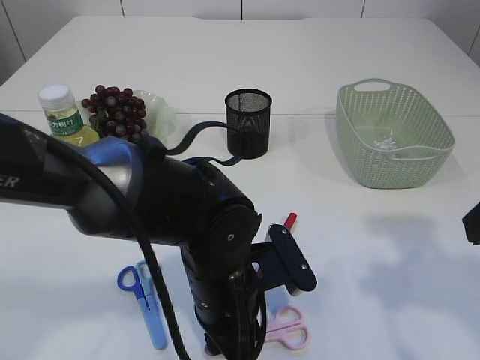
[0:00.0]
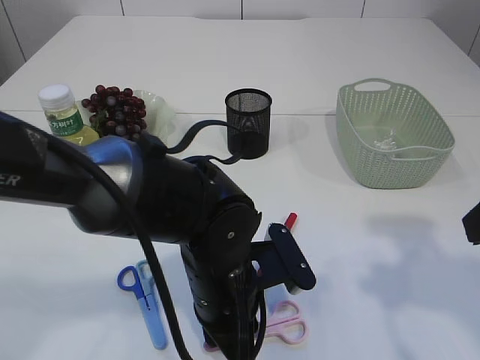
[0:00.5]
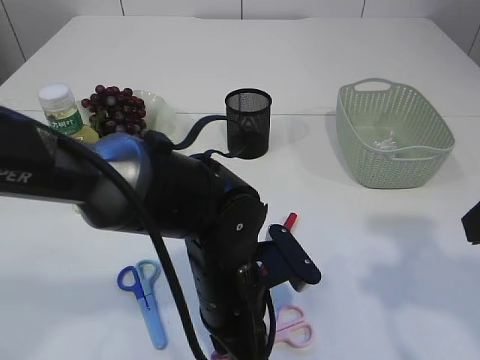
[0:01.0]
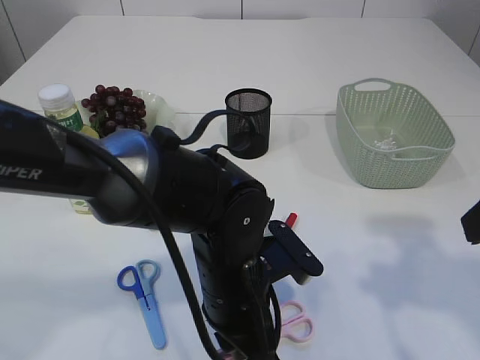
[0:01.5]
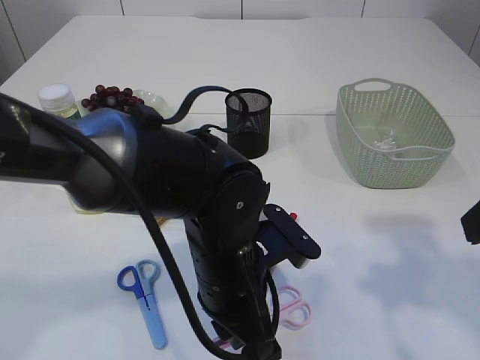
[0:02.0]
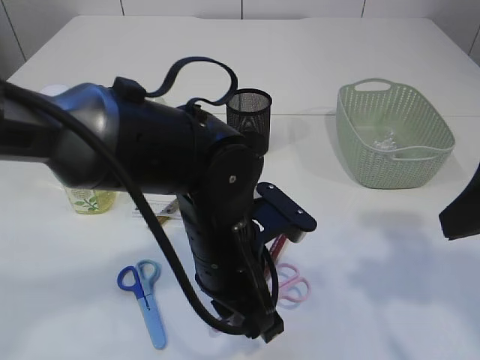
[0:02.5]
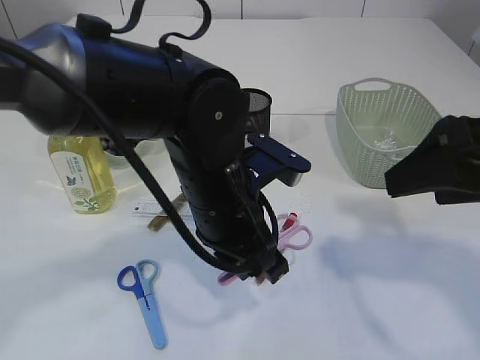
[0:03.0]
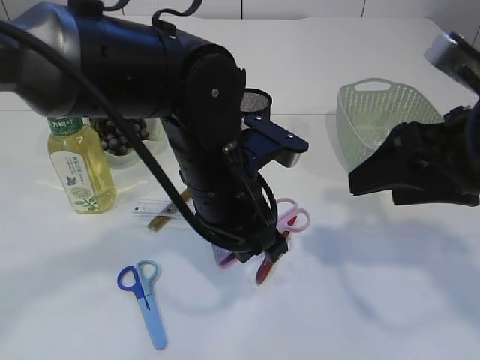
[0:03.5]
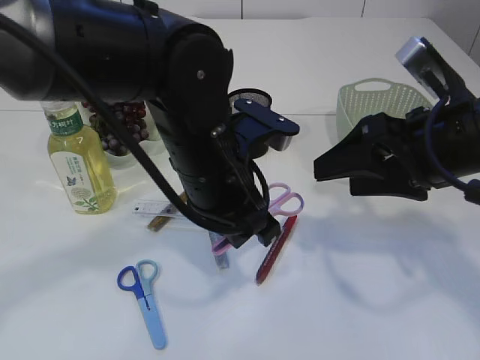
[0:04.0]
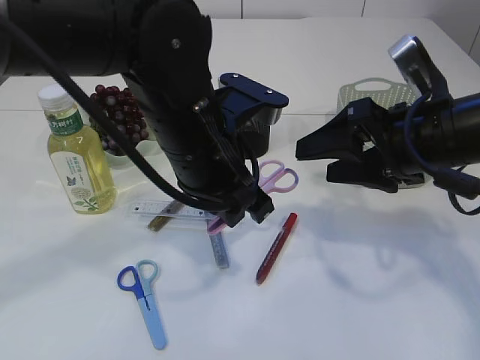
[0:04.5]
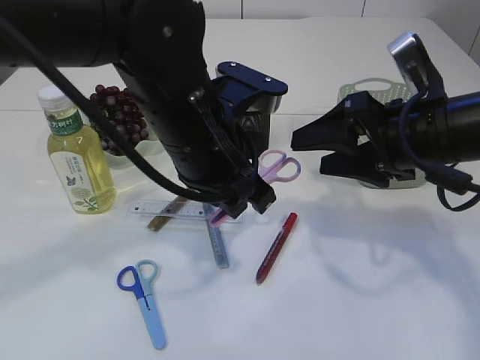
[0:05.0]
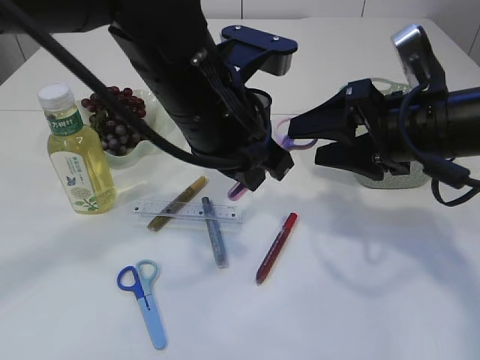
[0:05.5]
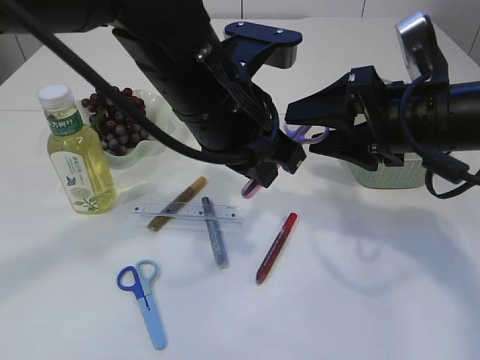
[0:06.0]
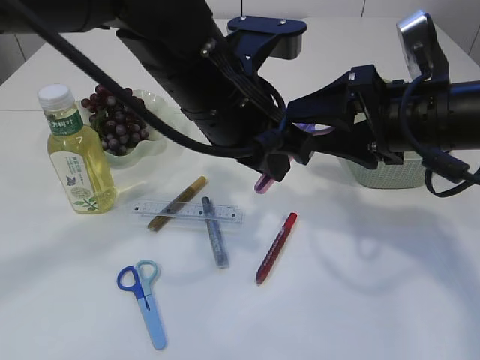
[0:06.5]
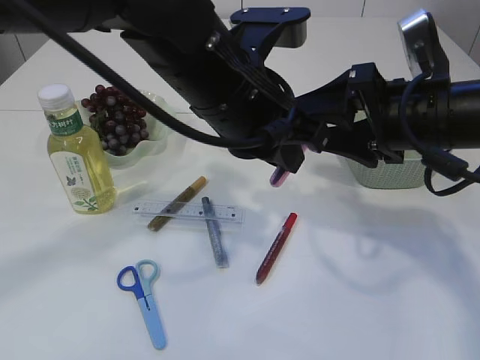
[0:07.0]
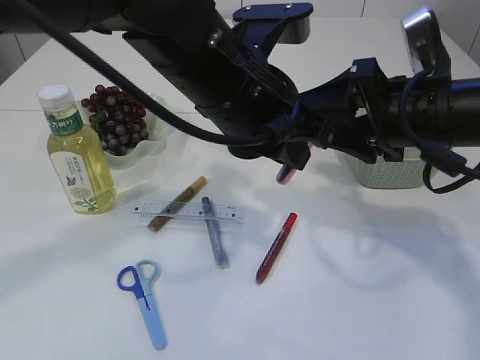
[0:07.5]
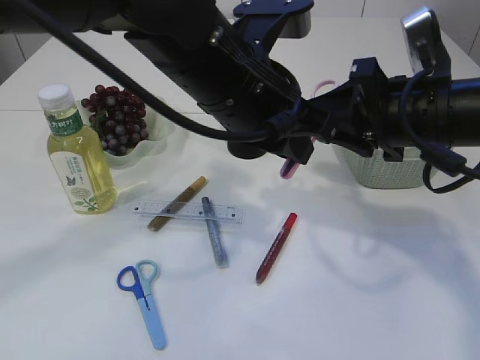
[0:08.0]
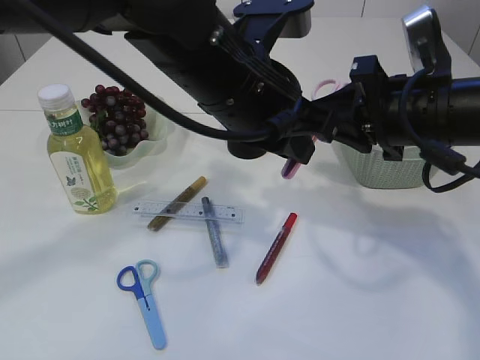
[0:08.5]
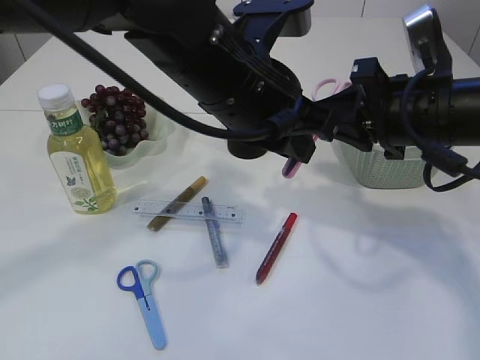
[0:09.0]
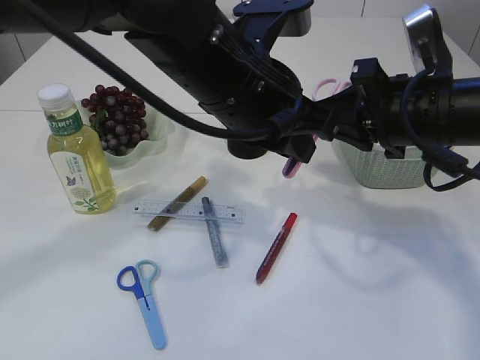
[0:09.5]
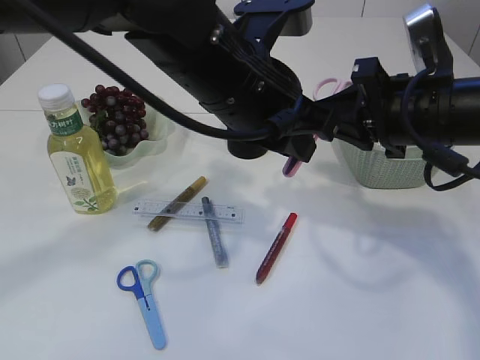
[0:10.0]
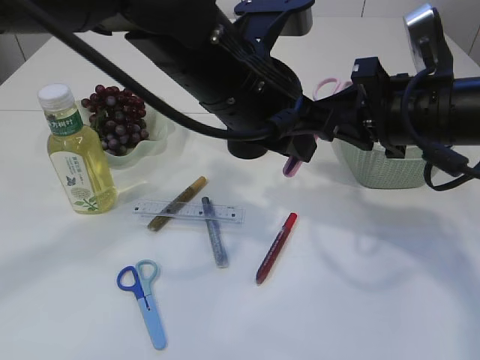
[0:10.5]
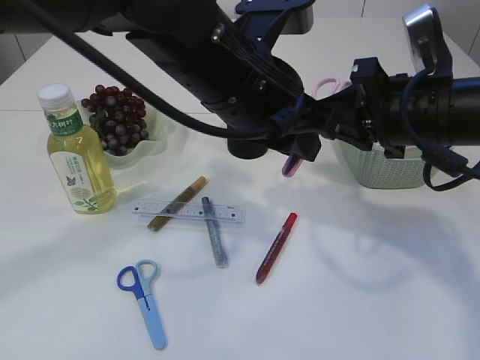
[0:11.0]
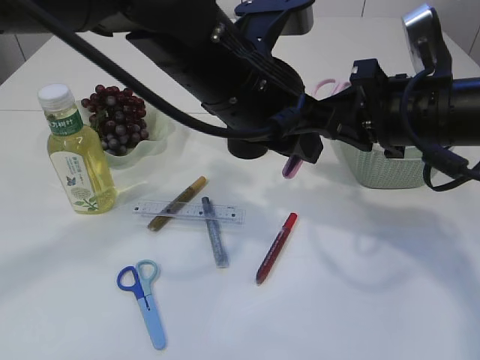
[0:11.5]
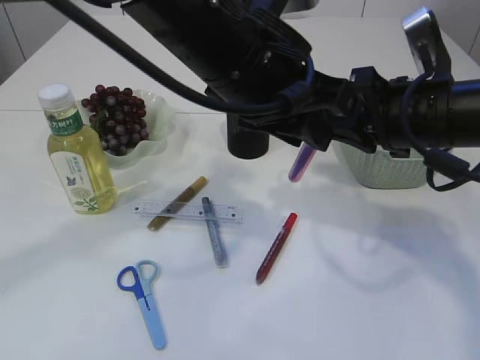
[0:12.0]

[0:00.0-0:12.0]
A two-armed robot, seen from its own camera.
0:00.0 to 0:02.0: The grippers move only a little.
0:02.0 to 0:04.0: The left gripper heads upward and forward, covering some 10 cm, while the right gripper is displaced forward and downward by roughly 10 cm.
0:04.0 to 0:06.0: The left gripper goes roughly 5 cm upward.
0:06.0 to 0:08.0: The right gripper closes up.
0:08.0 to 0:10.0: The right gripper closes its fingers.
0:10.0 to 0:12.0: There are only small adjustments of the grippers.

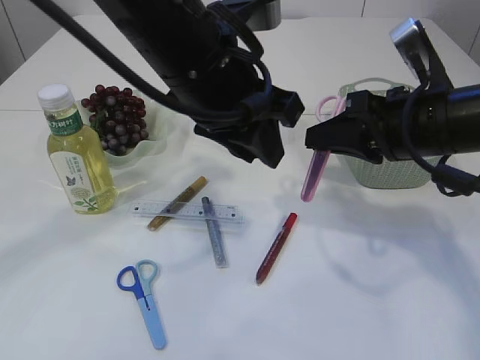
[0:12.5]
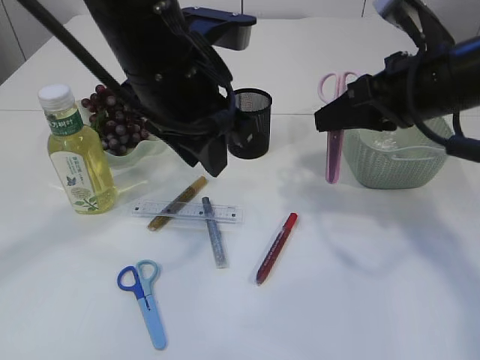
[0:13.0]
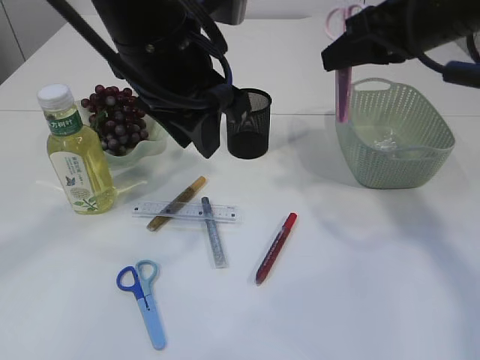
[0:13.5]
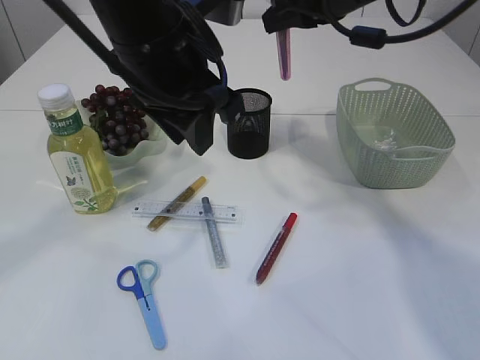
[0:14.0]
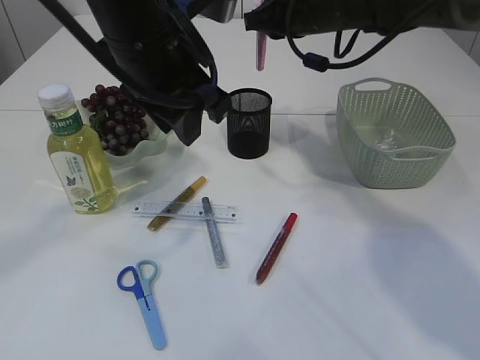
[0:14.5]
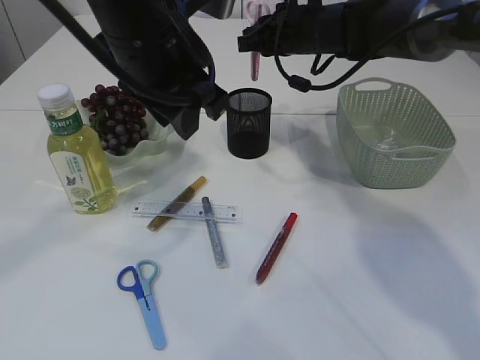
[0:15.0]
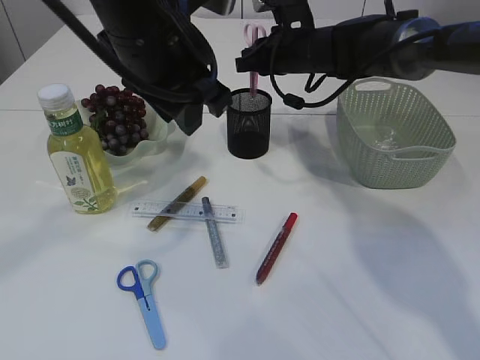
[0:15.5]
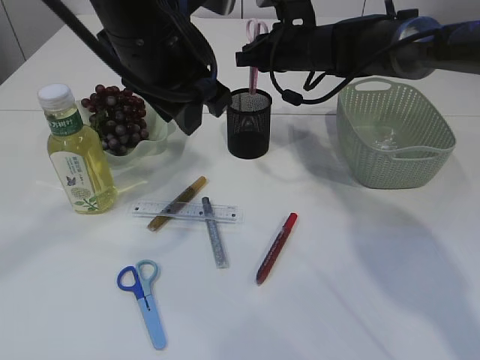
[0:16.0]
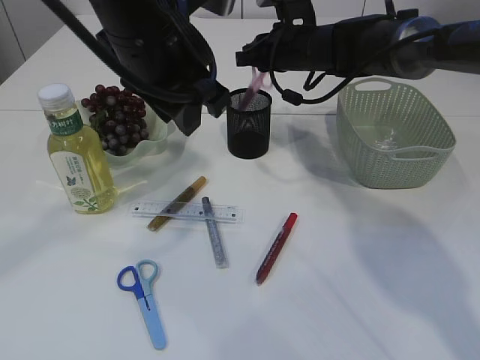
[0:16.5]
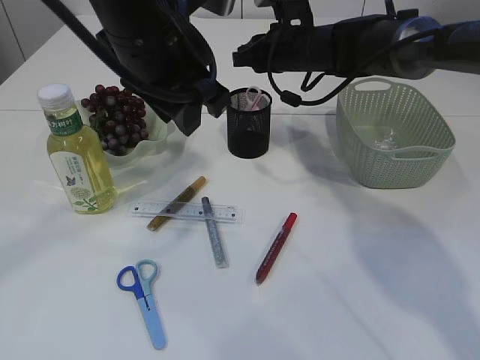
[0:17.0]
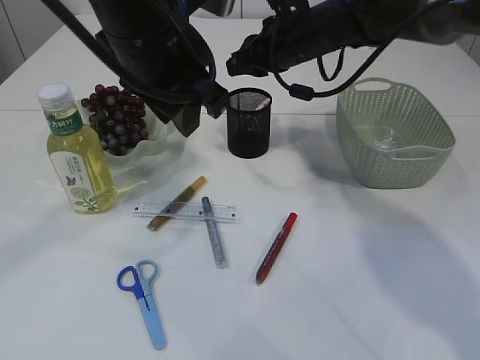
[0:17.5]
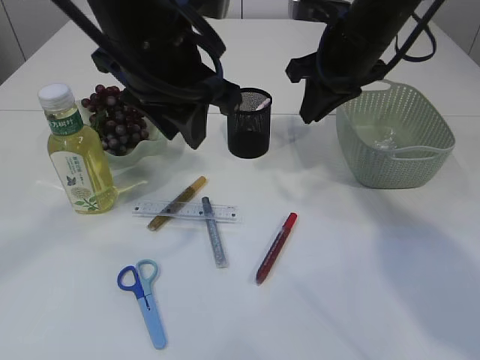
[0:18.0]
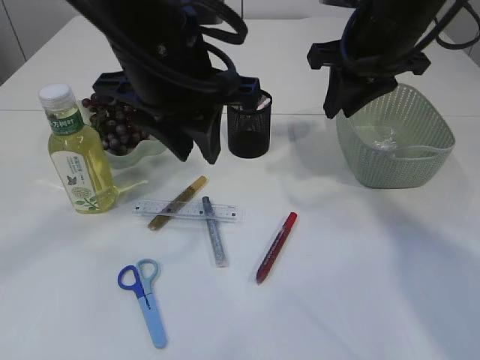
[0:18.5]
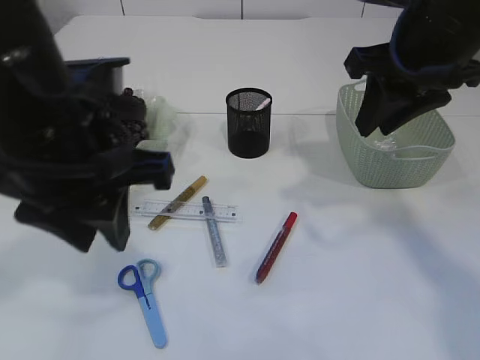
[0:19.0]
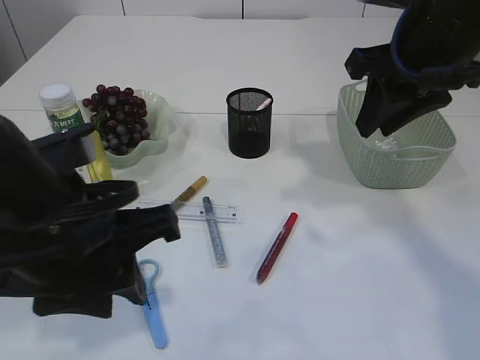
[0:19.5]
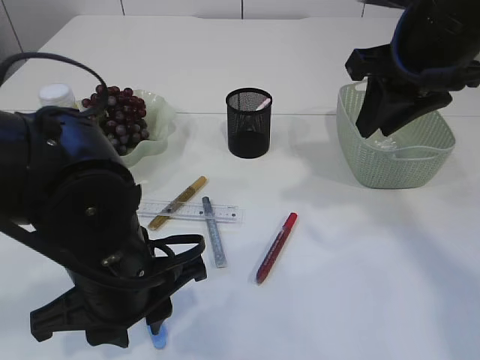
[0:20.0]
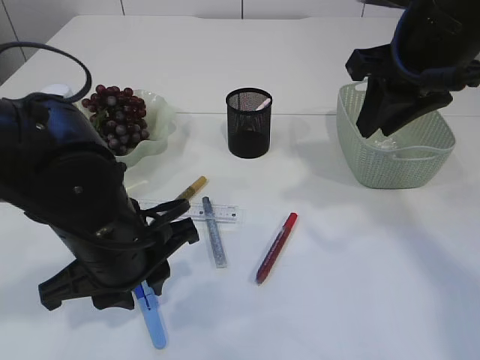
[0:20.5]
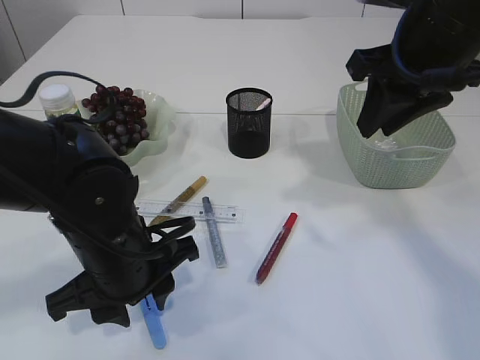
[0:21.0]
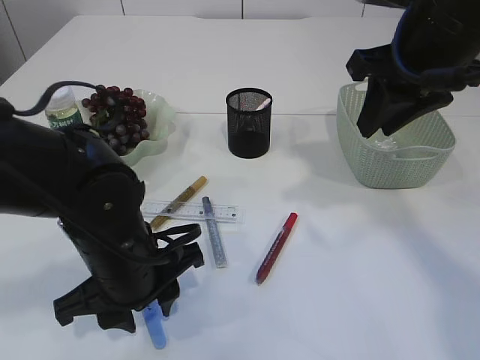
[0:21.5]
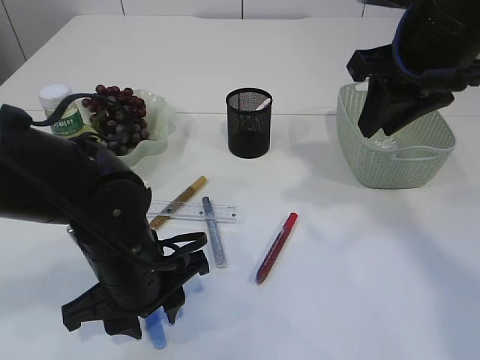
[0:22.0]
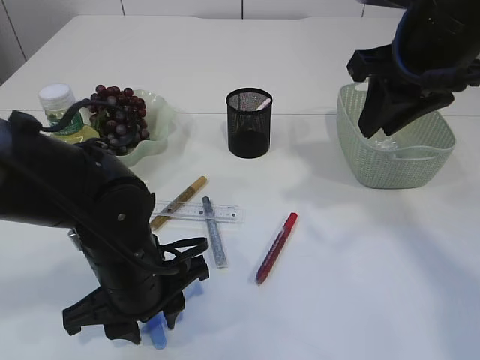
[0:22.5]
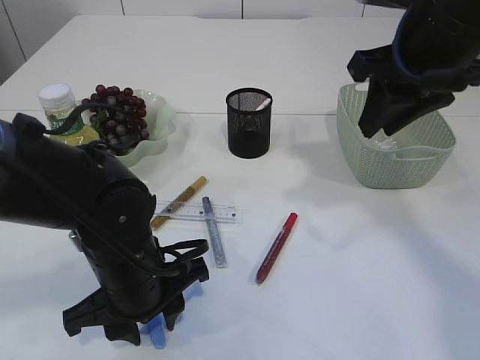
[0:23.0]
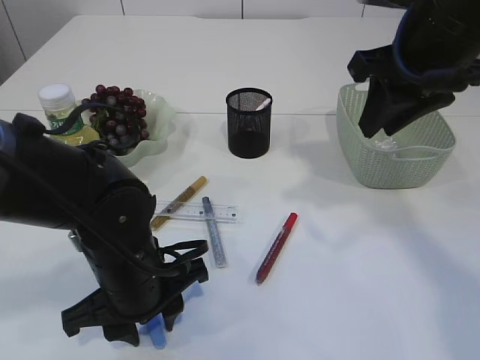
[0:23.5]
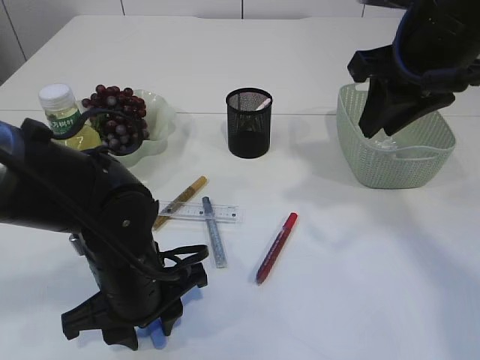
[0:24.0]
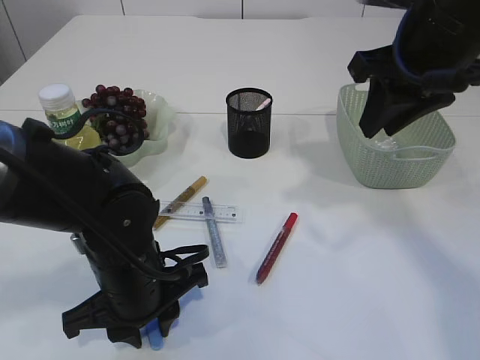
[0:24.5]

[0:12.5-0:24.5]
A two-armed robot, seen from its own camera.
Step, 0:12.5 to 0:16.5: Place the pink scissors into the pen holder.
0:12.5 to 0:14.5: The right gripper is displaced forward by some 15 cm.
0:14.5 to 0:16.5: The right gripper shifts about 5 cm downward.
0:16.5 to 0:18.5: The right gripper is displaced backward, upward and to the right by about 15 cm.
0:18.5 to 0:20.5: The right gripper heads backward, covering roughly 5 cm; the left gripper is displaced downward and backward by roughly 15 cm.
0:20.5 to 0:22.5: The left gripper is displaced downward by approximately 5 cm.
0:22.5 to 0:24.5: Neither gripper changes place.

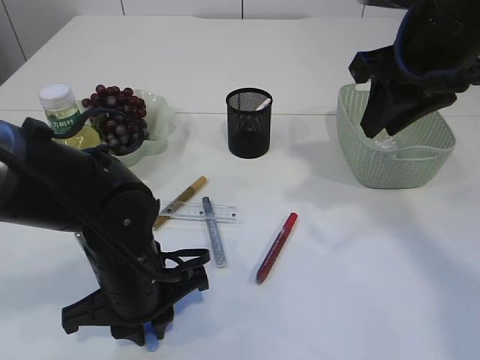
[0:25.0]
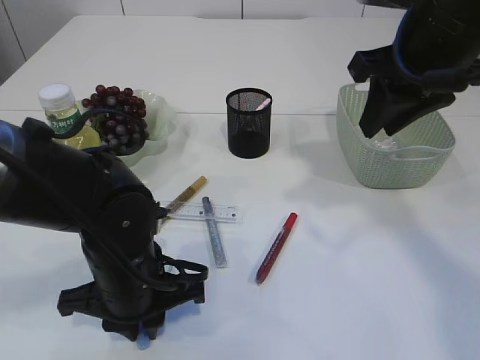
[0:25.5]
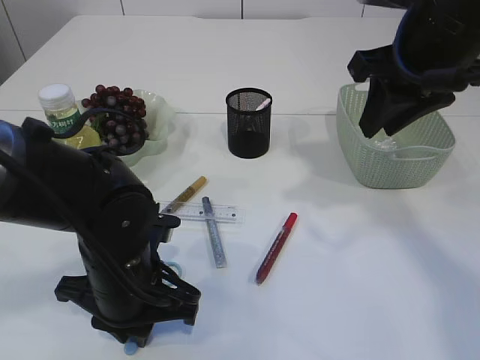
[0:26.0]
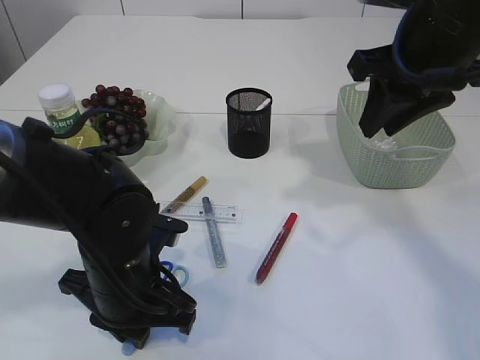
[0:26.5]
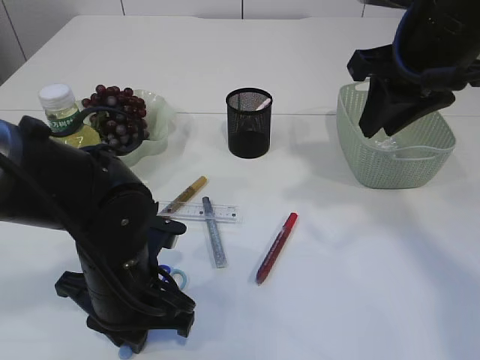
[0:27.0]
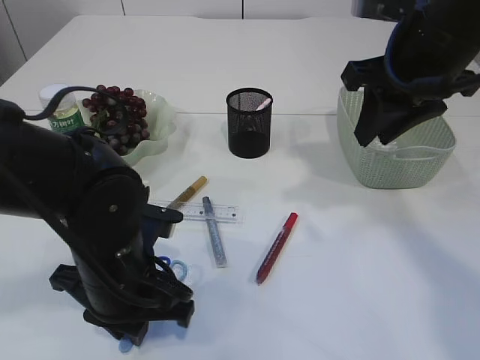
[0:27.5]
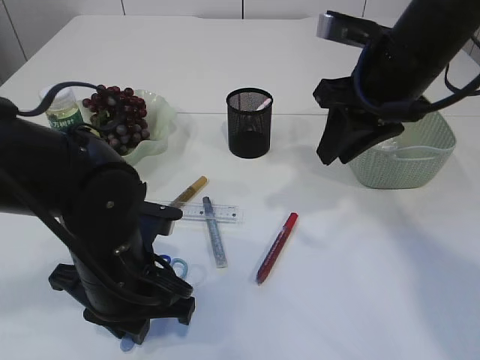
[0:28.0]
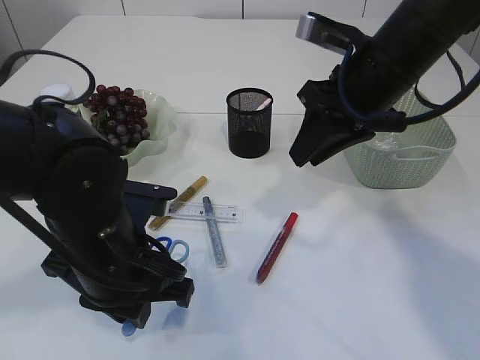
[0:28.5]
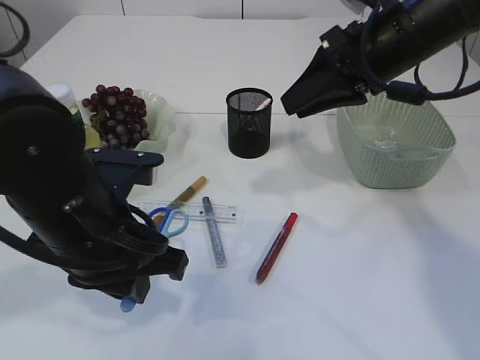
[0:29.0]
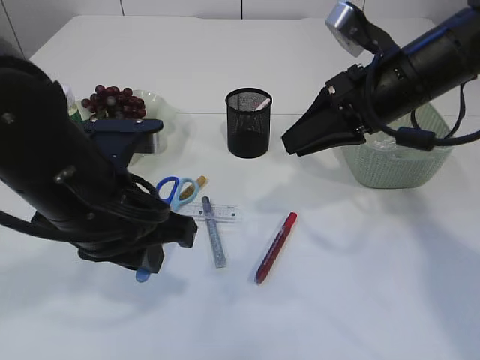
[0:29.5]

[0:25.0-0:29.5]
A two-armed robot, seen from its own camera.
Step, 0:25.0 to 0:28.0: pick up the blue scissors.
0:27.0 to 0:29.5: The right gripper is displaced downward by approximately 5 cm, while the left gripper travels upward by about 10 cm.
